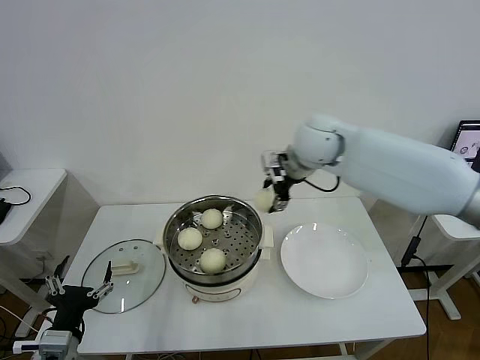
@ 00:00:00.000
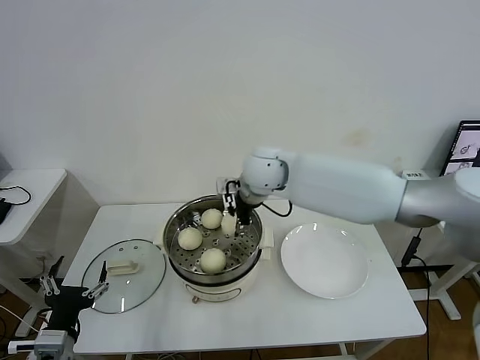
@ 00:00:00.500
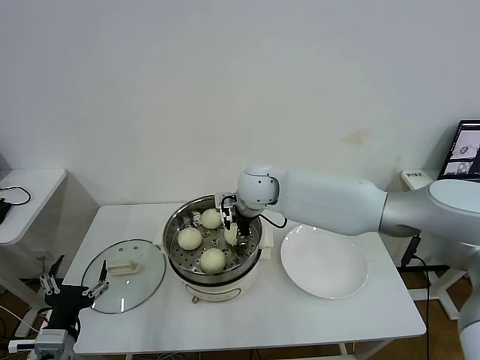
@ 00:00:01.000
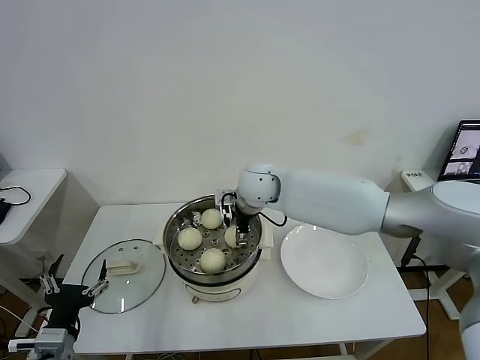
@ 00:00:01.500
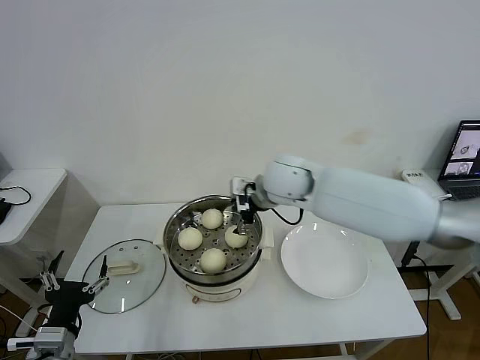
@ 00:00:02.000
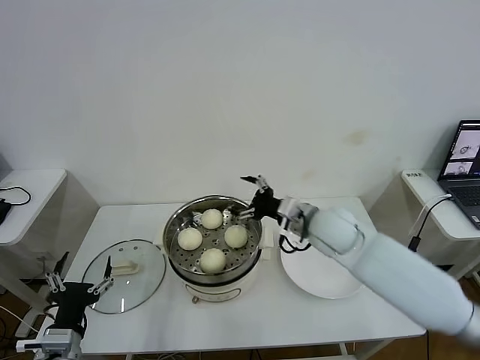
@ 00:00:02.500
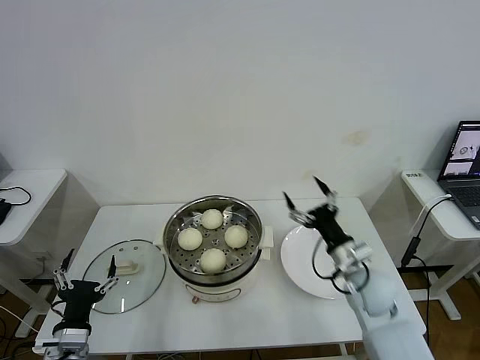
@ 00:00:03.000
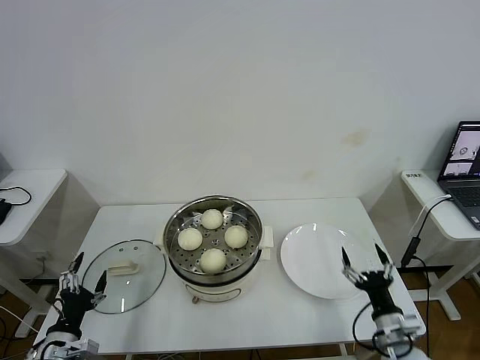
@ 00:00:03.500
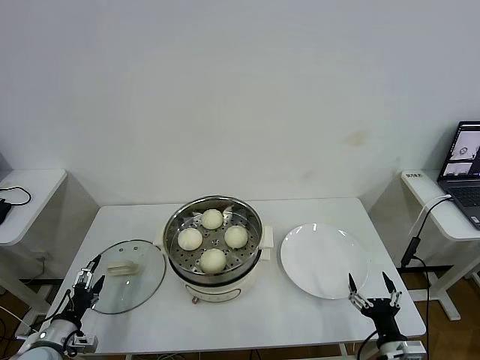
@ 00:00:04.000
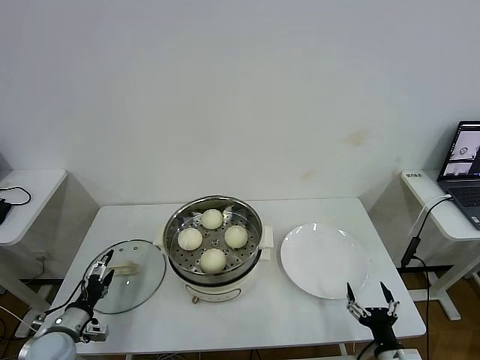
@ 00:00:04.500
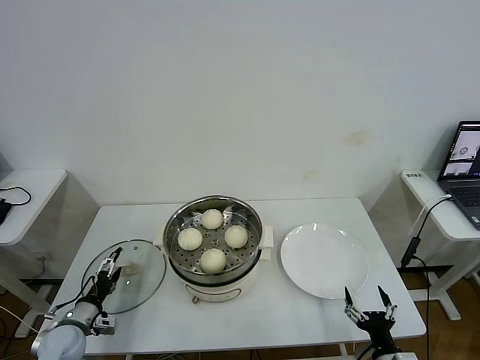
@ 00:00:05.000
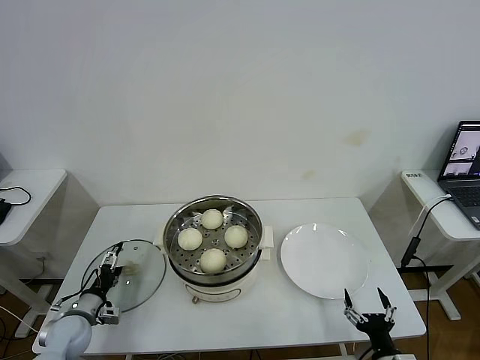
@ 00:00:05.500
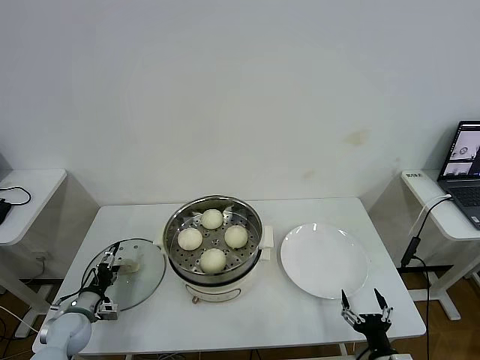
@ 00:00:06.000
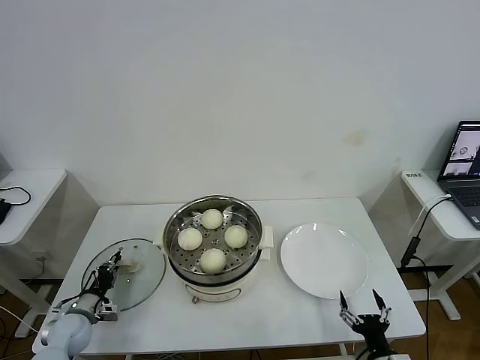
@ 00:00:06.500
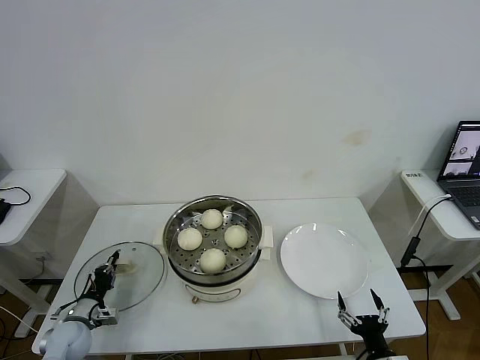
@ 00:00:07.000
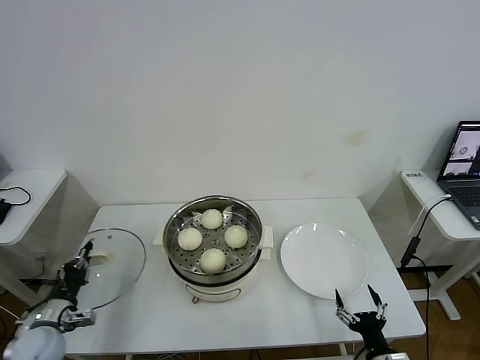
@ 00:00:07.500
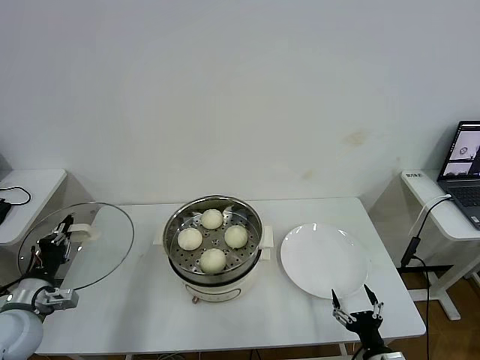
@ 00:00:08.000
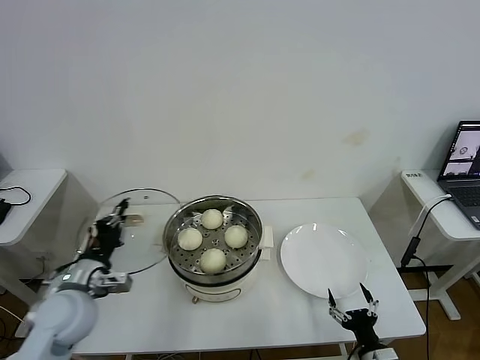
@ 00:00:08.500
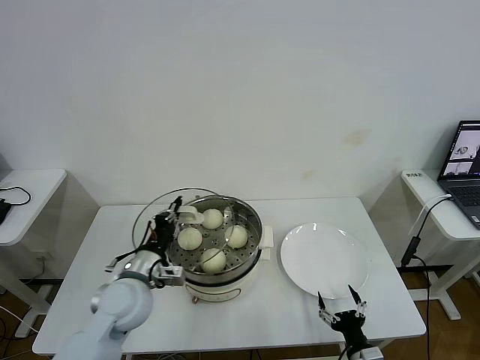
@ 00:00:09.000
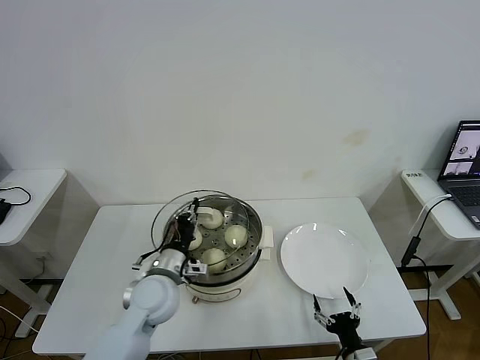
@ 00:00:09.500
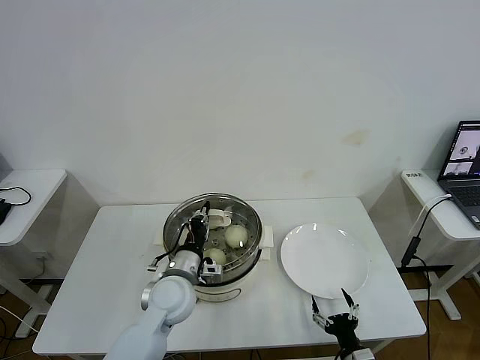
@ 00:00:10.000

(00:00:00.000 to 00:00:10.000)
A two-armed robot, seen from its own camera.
Task of the whole recording: take steamed baozi put them in steamer then cover it.
Step, 00:00:00.000 - 00:00:01.500: Place the baozi on the steamer with right gripper.
Step, 00:00:02.000 - 00:00:06.500: Grasp the pot lid with left gripper.
00:00:00.000 - 00:00:02.000: The right gripper shifts approximately 10 cm to the left and downward, and opens up.
00:00:02.000 - 00:00:04.000: The left gripper moves downward, to the left and forward, about 15 cm. The right gripper heads backward, downward and to the right, covering some 50 cm.
00:00:04.000 - 00:00:06.000: The left gripper travels forward and downward by roughly 10 cm.
00:00:06.000 - 00:00:08.000: The left gripper is displaced upward by approximately 15 cm, and closes its fingers.
00:00:08.000 - 00:00:10.000: The right gripper shifts by approximately 5 cm; the left gripper moves to the right, approximately 30 cm.

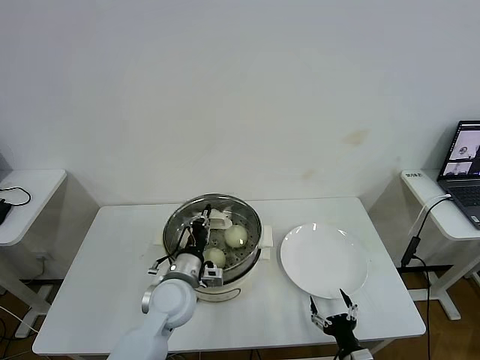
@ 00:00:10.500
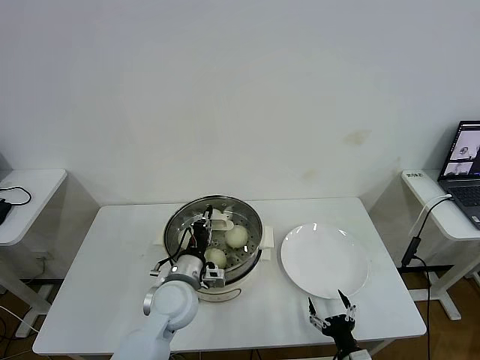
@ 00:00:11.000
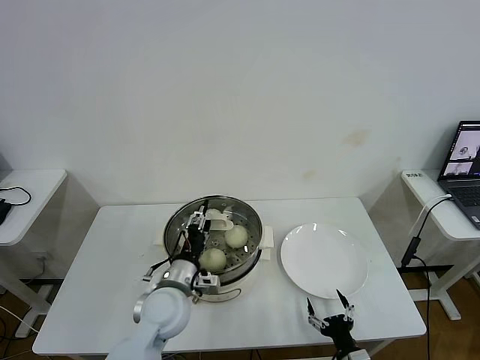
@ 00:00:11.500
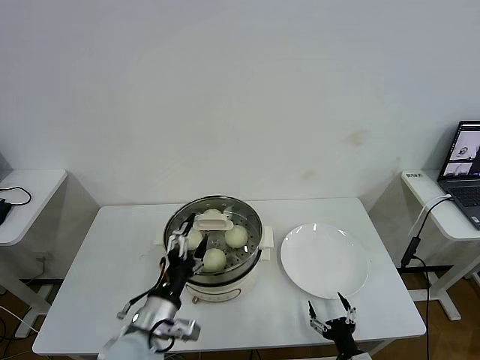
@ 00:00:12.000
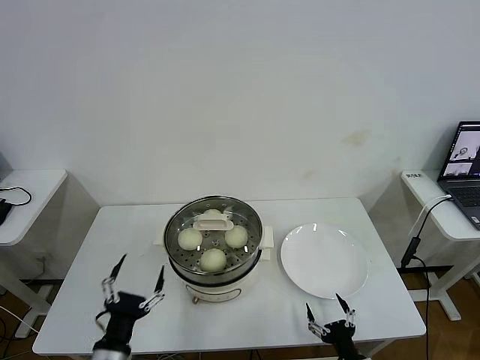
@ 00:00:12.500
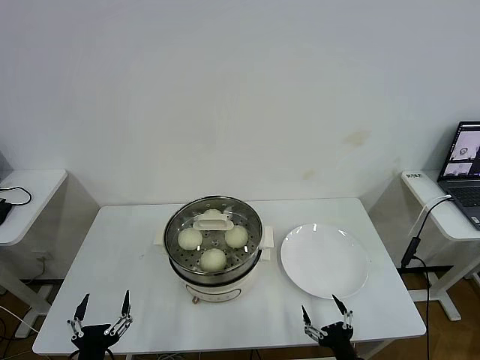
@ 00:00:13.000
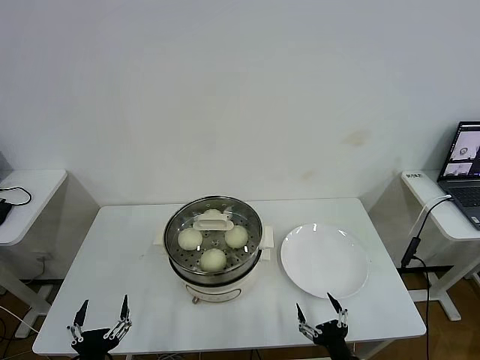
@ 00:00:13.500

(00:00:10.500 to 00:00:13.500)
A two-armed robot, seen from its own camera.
Task of the whole recording: take steamed baozi put them in steamer then cover it.
00:00:10.500 - 00:00:12.000: The left gripper goes some 10 cm backward, and opens up.
00:00:12.000 - 00:00:13.500: The right gripper is displaced upward by some 5 cm. Meanwhile the left gripper travels backward, to the left and downward by some 20 cm.

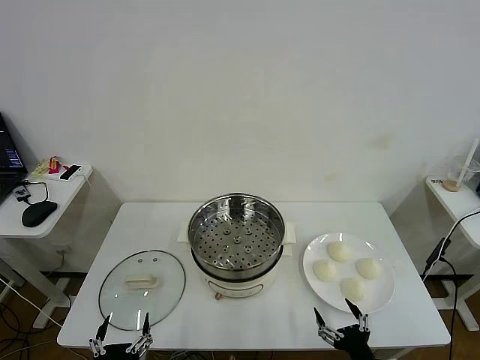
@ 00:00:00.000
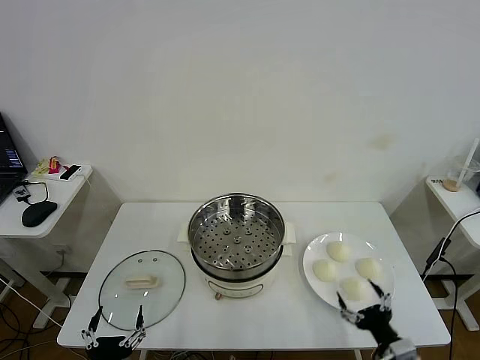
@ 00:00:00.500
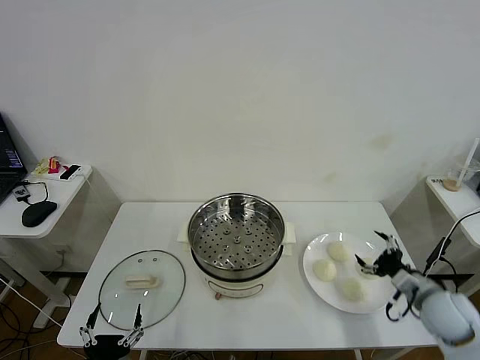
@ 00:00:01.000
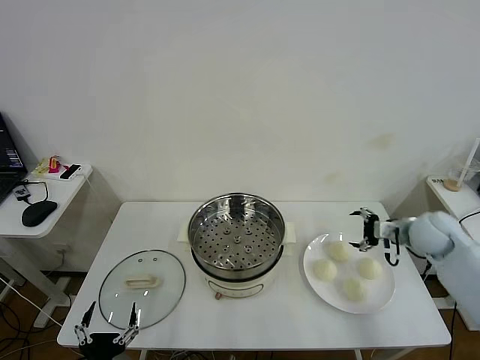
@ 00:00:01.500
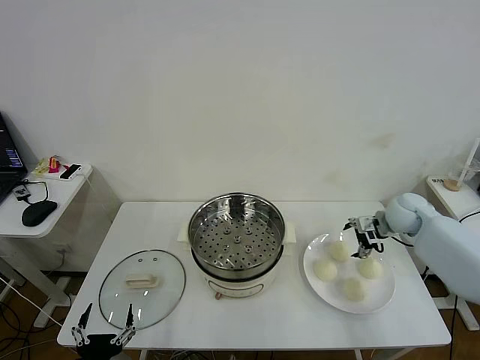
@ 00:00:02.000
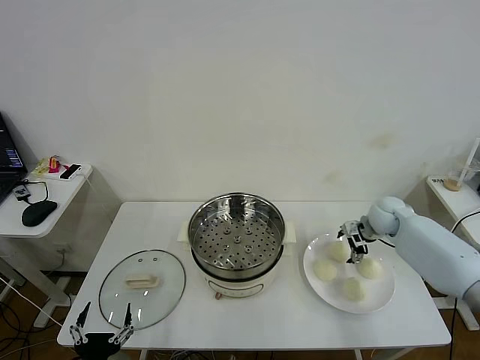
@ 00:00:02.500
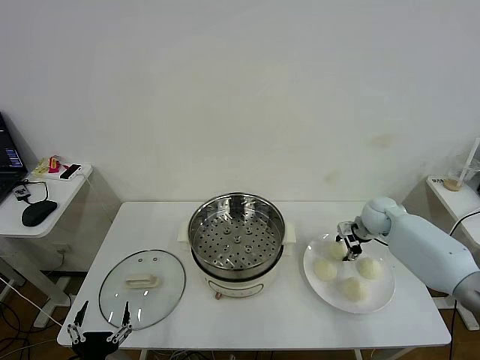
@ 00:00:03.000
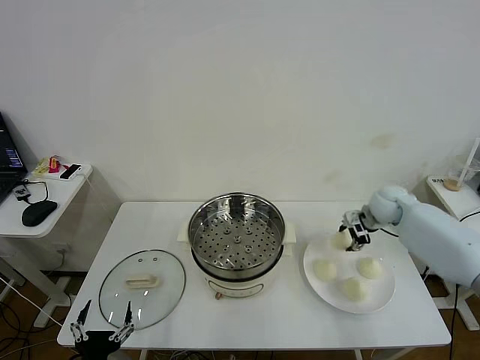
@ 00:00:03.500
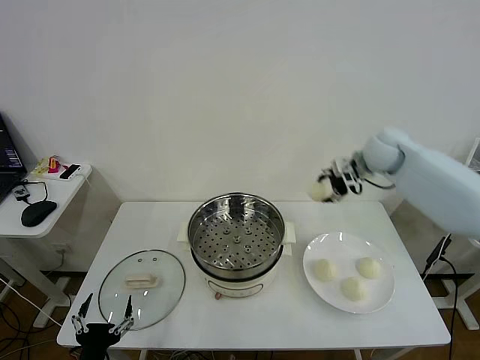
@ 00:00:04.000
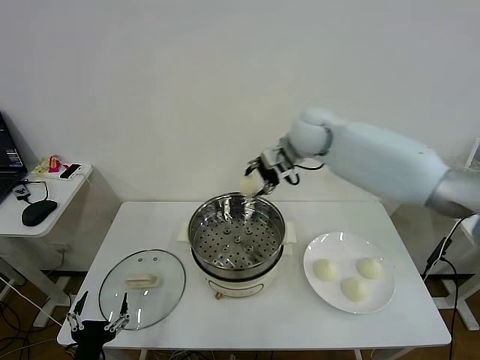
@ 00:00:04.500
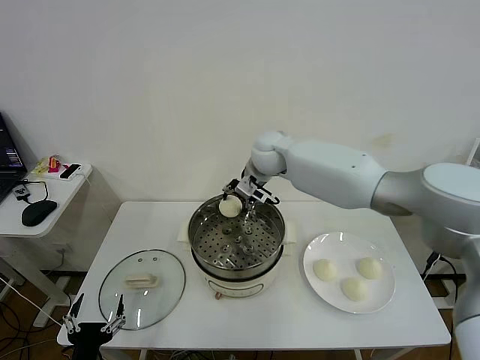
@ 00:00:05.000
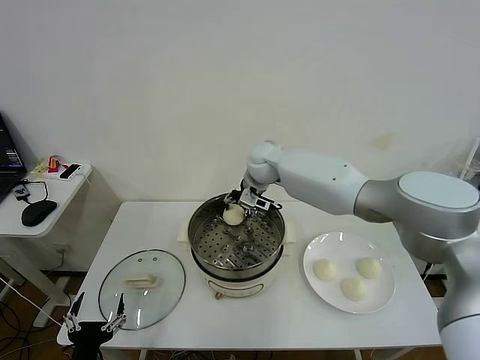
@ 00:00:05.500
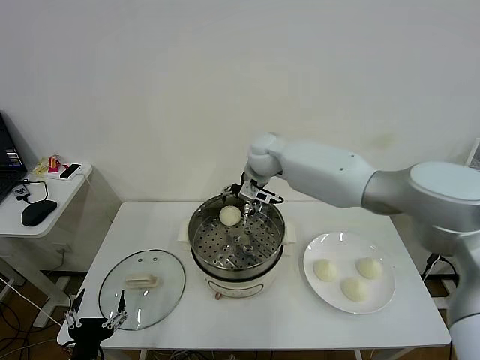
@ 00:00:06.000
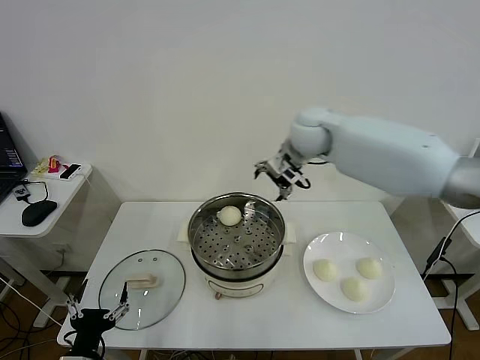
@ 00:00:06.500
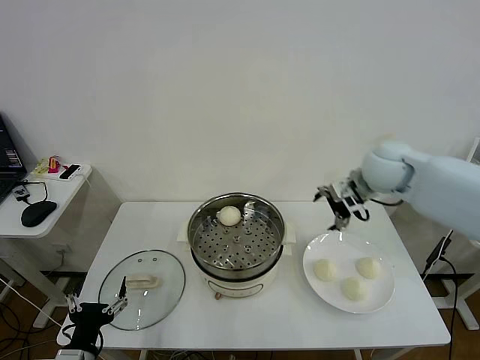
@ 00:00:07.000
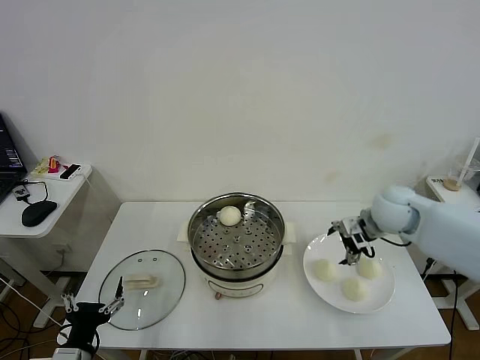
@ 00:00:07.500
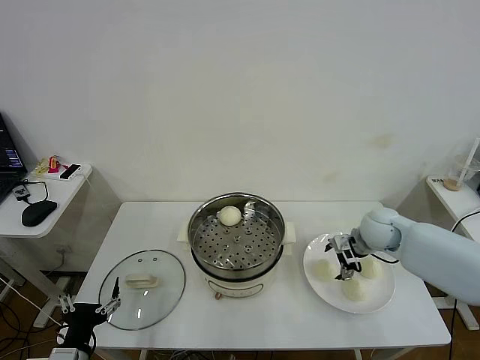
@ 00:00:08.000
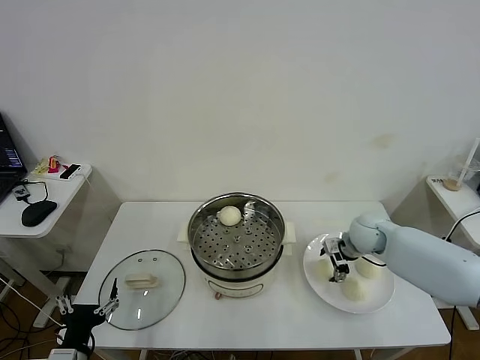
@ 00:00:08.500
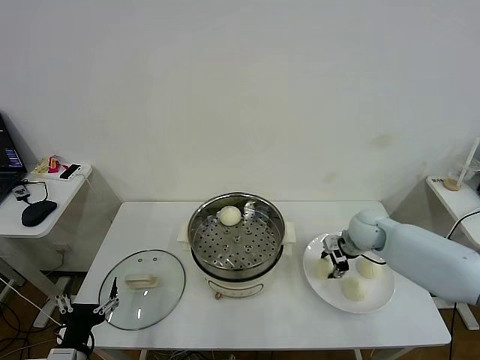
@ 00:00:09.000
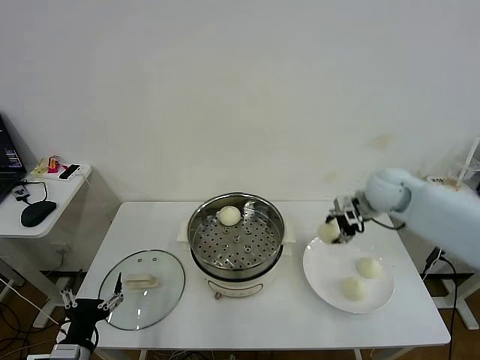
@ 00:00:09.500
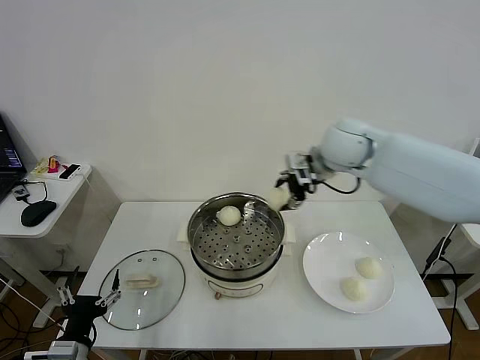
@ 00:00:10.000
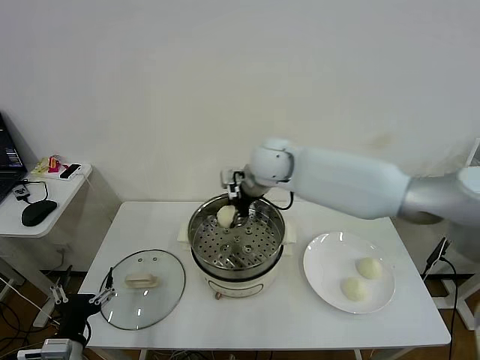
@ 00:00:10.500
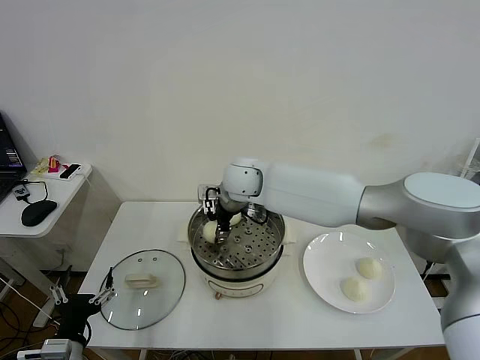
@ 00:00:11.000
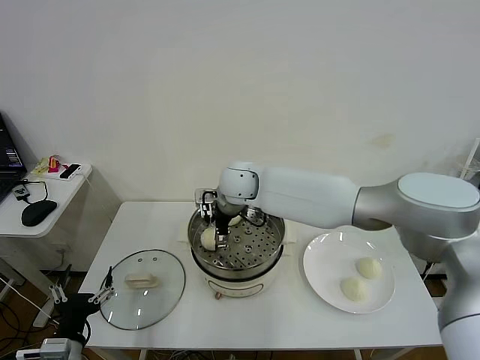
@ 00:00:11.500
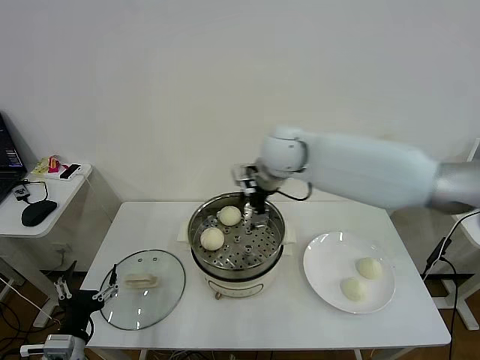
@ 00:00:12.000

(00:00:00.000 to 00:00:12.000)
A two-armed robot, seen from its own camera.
Task of the whole recording: take steamed baozi put them in steamer then cover it.
Step, 00:00:00.000 - 00:00:03.000: Grasp the baozi in the plate with right gripper.
Step, 00:00:03.500 - 00:00:05.500: Place the baozi on the steamer with right gripper.
Step, 00:00:06.500 - 00:00:08.500: Grasp the baozi in the plate with right gripper.
Step, 00:00:09.000 - 00:00:11.500: Place the baozi on the steamer with right gripper.
00:00:02.000 - 00:00:04.000: The right gripper shifts some 20 cm upward and to the left, and closes up.
00:00:04.000 - 00:00:06.000: The right gripper travels to the left by some 20 cm, and opens its fingers.
00:00:06.000 - 00:00:08.000: The right gripper travels to the right, downward and backward by approximately 30 cm.
00:00:08.000 - 00:00:10.000: The right gripper goes about 25 cm upward and to the left, and closes.
00:00:10.000 - 00:00:12.000: The right gripper goes to the left and returns, roughly 15 cm each way, and opens its fingers.
